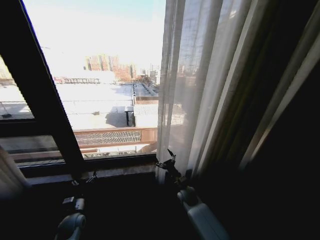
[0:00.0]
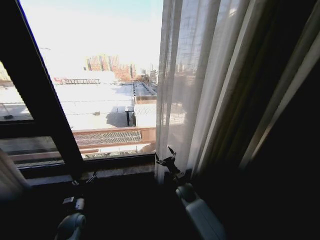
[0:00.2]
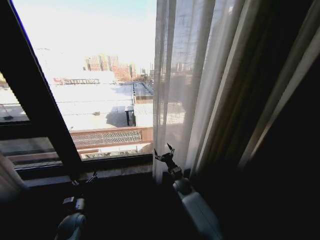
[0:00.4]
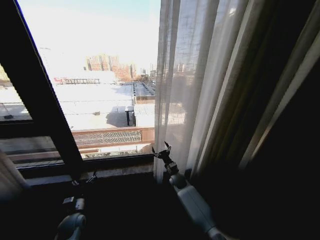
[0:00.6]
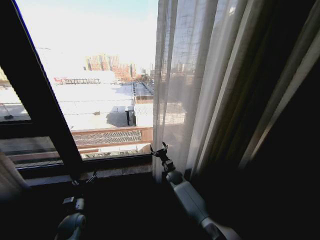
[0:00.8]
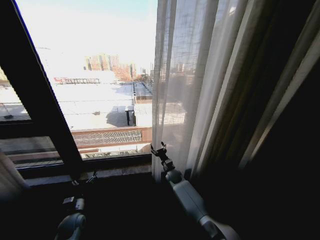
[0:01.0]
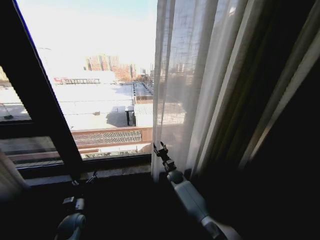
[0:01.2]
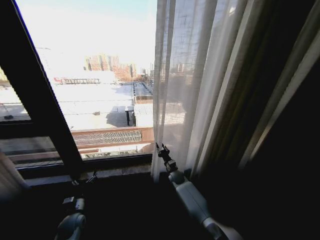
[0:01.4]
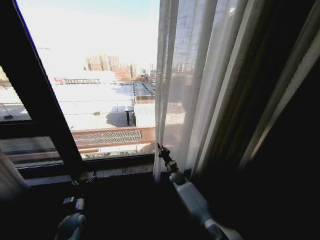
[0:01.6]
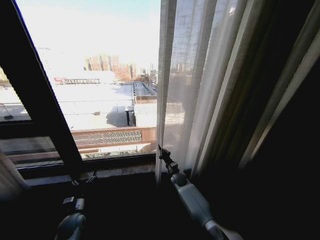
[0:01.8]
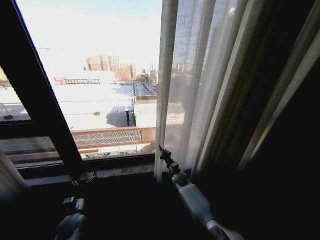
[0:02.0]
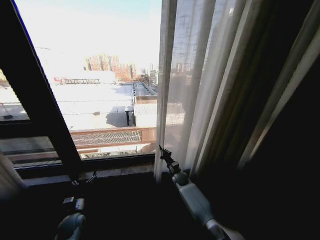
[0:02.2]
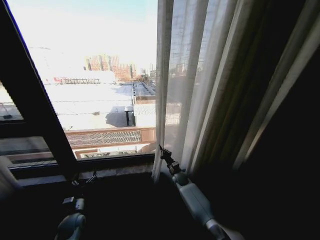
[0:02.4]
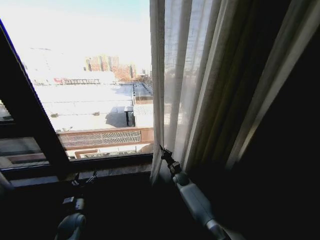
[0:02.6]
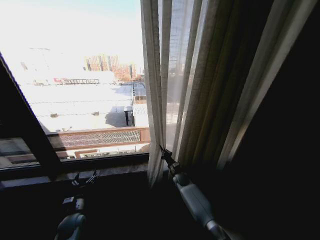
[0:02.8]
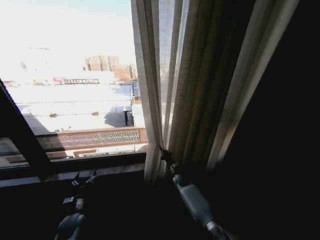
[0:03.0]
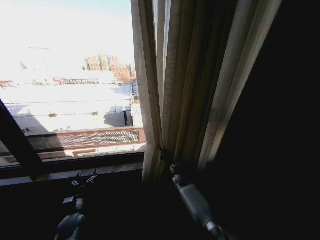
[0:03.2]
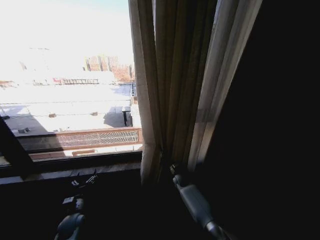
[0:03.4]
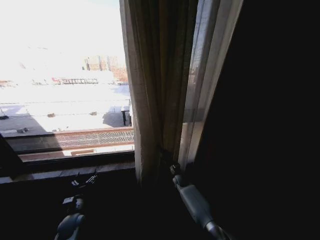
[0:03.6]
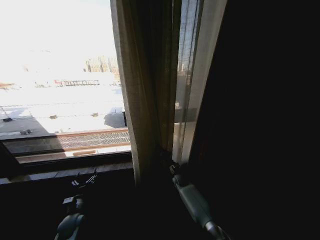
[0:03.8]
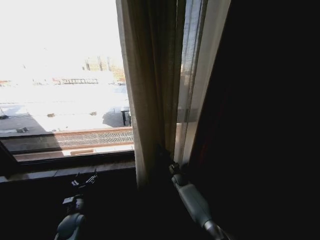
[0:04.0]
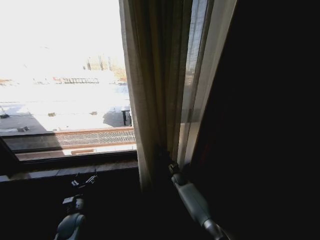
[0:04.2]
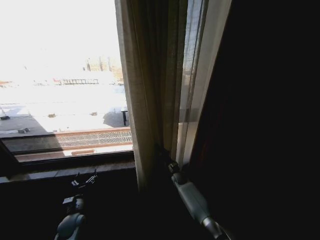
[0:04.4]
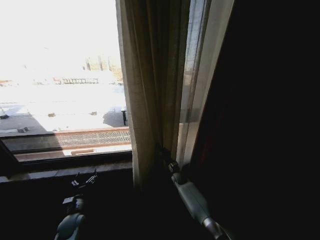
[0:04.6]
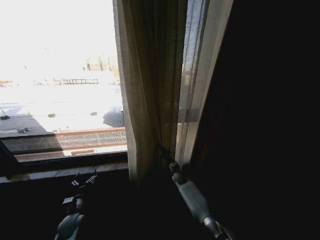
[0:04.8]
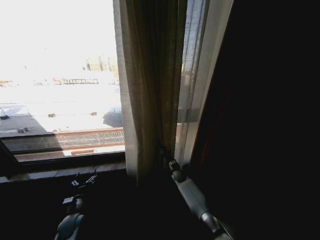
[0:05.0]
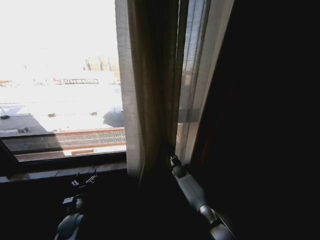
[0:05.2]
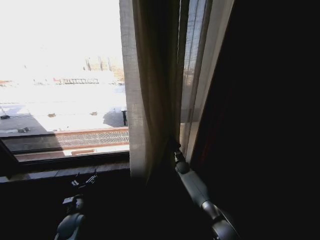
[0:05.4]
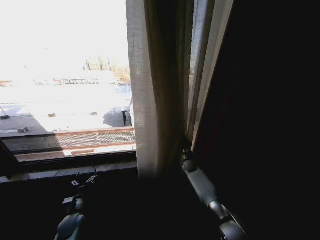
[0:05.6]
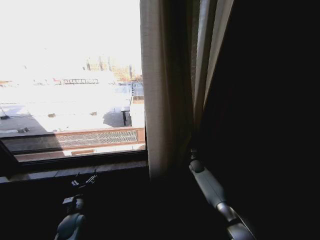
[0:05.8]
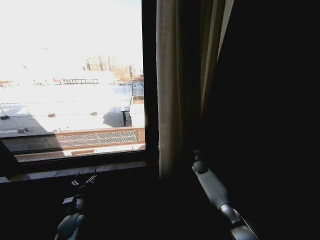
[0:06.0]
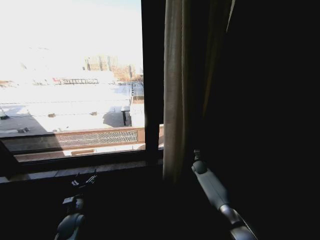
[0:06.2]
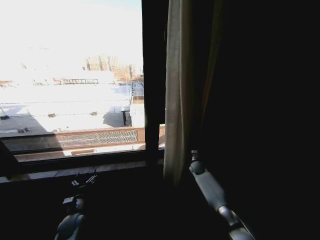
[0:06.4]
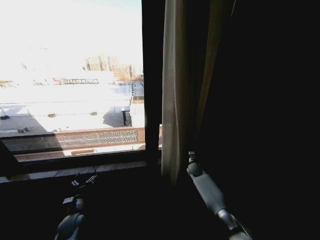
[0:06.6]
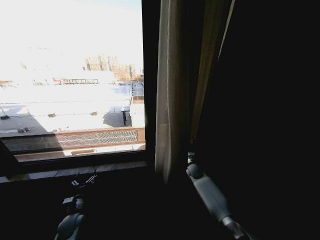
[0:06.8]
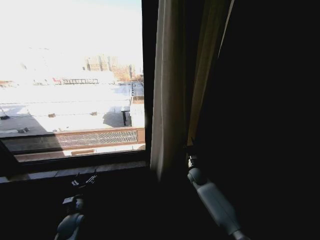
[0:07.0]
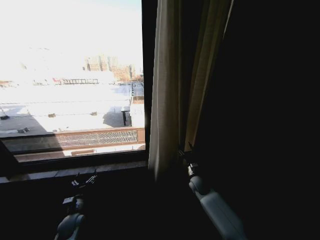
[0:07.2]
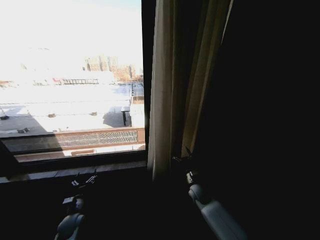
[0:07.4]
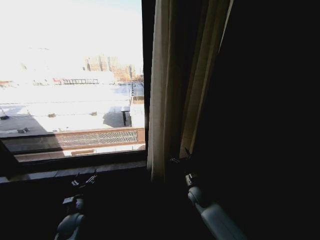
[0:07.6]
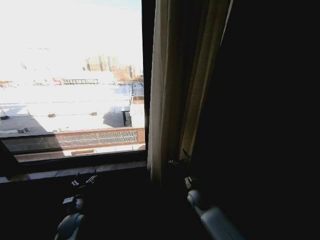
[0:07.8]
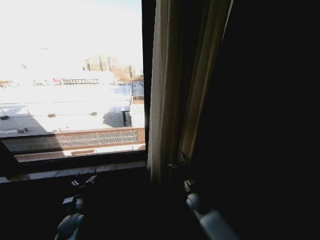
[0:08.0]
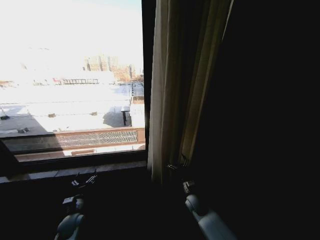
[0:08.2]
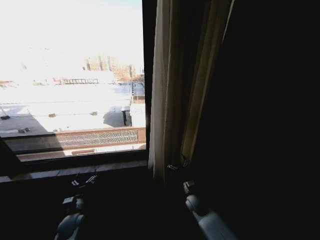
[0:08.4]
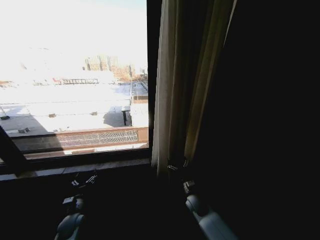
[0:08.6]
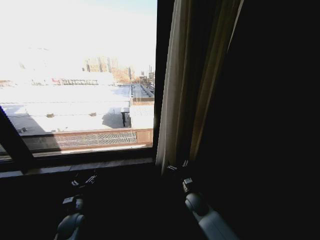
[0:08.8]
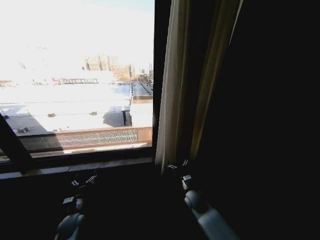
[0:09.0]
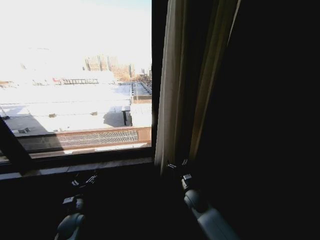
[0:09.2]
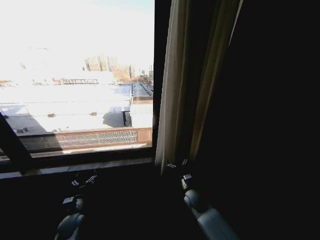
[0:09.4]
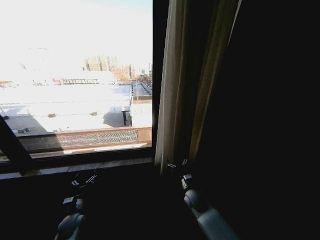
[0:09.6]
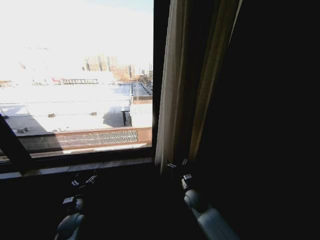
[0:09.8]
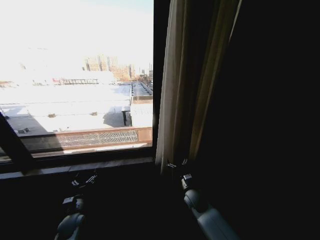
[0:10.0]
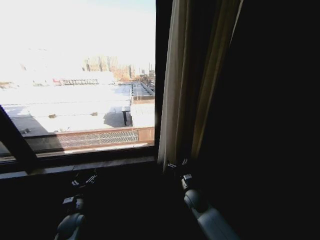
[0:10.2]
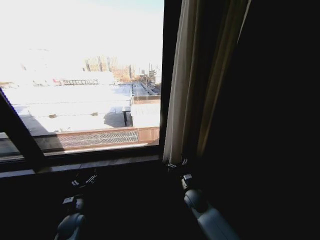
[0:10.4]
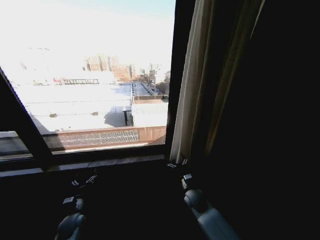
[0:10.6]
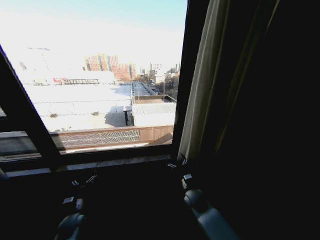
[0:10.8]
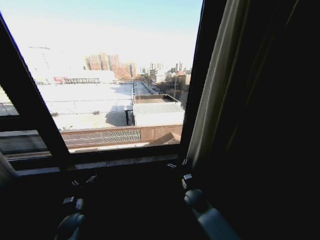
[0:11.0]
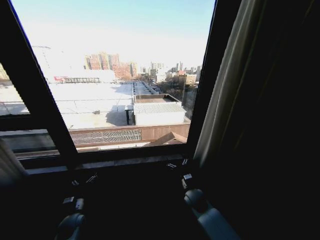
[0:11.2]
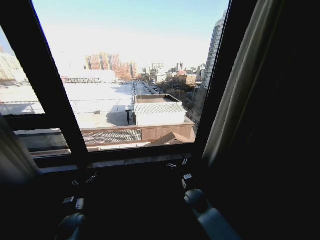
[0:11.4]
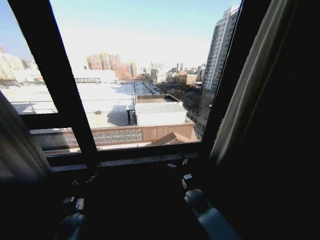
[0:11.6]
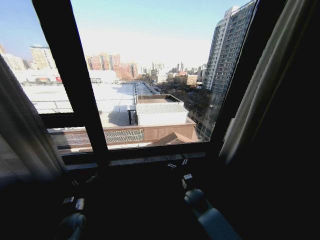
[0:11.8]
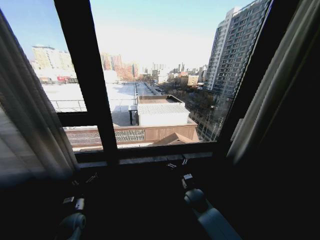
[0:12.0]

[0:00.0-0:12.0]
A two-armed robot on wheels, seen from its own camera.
Task of the whole recording: Open the curtains by pulling them apart, changing their state from closed to fully open.
0:00.0 to 0:01.6: The right gripper goes about 10 cm forward, and closes up.
0:04.4 to 0:06.0: The right gripper heads to the right, covering some 15 cm.
0:06.0 to 0:07.6: The right gripper travels backward and to the left by approximately 20 cm, and opens its fingers.
0:07.6 to 0:09.0: The grippers stay close to where they were, moving slightly.
0:09.0 to 0:10.4: Both grippers stay about where they are.

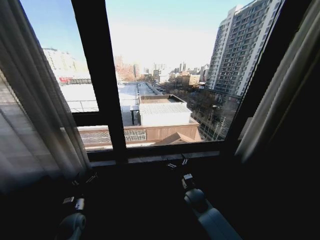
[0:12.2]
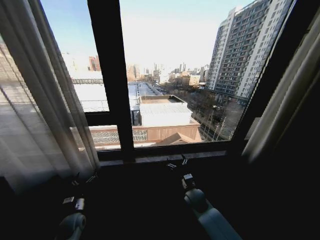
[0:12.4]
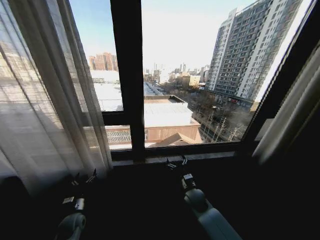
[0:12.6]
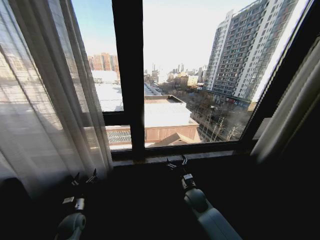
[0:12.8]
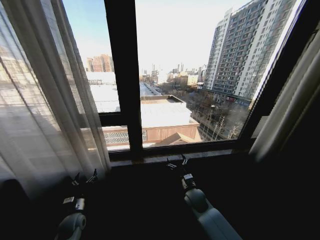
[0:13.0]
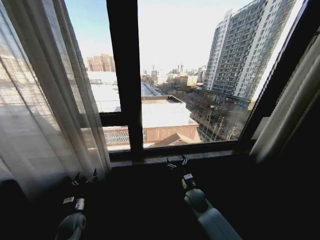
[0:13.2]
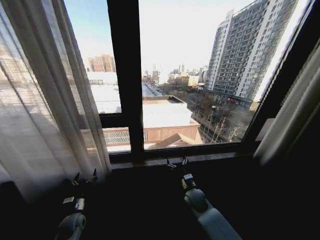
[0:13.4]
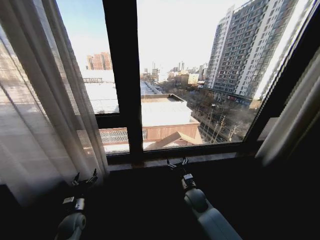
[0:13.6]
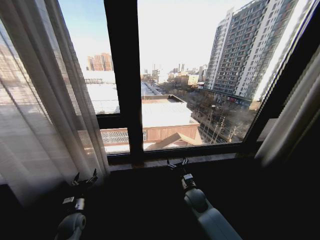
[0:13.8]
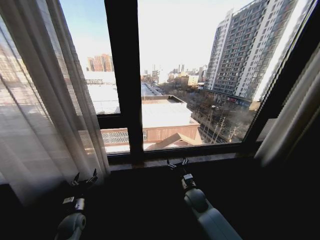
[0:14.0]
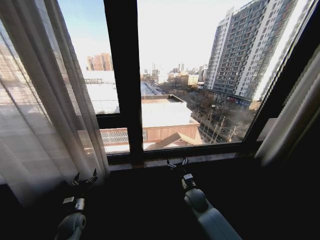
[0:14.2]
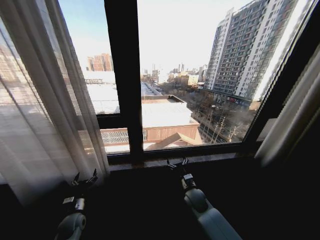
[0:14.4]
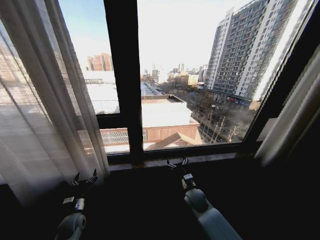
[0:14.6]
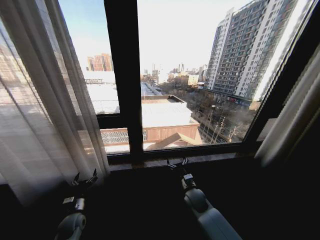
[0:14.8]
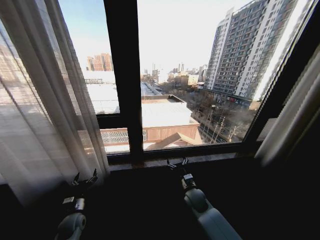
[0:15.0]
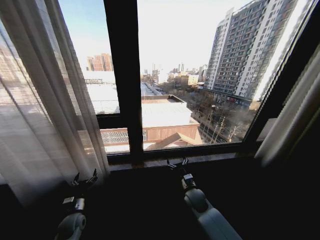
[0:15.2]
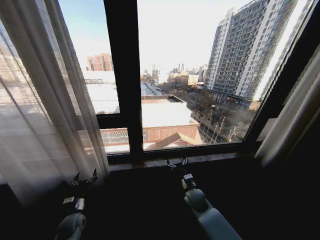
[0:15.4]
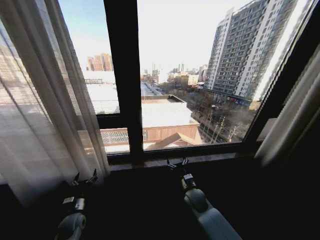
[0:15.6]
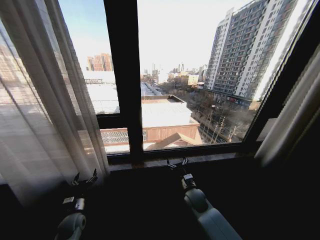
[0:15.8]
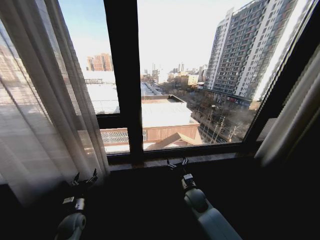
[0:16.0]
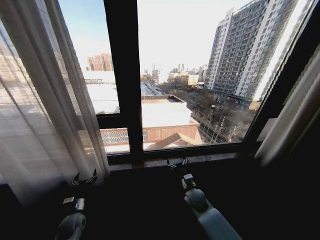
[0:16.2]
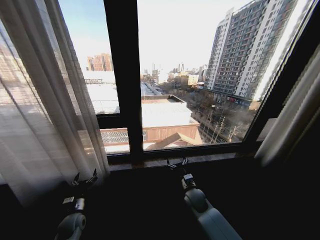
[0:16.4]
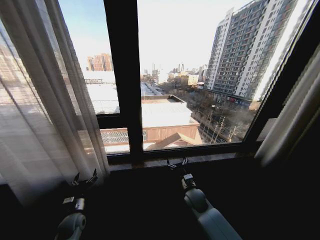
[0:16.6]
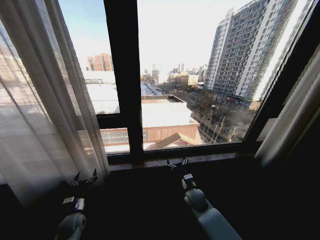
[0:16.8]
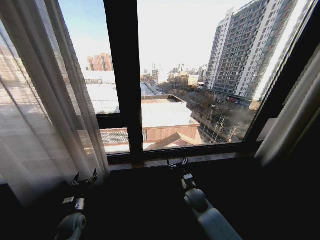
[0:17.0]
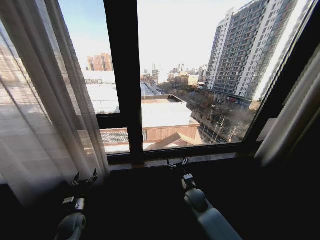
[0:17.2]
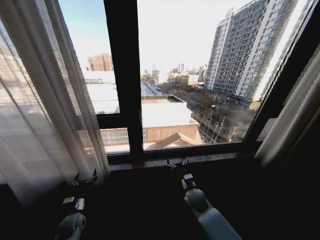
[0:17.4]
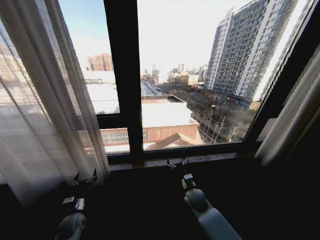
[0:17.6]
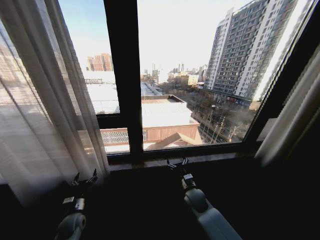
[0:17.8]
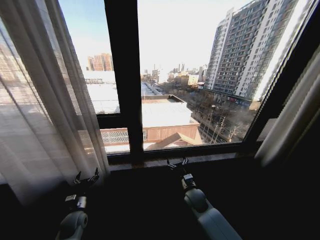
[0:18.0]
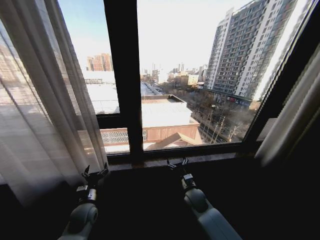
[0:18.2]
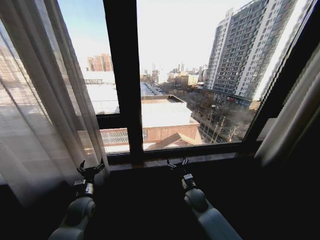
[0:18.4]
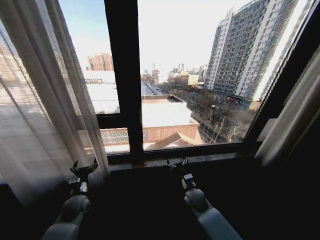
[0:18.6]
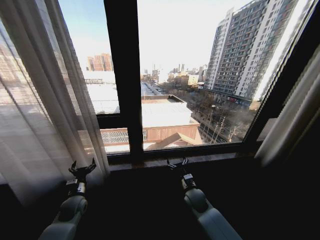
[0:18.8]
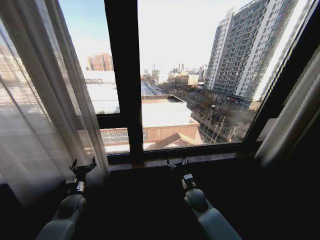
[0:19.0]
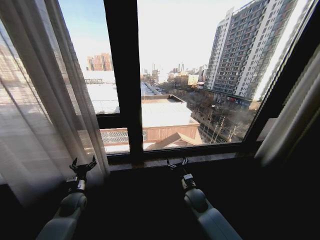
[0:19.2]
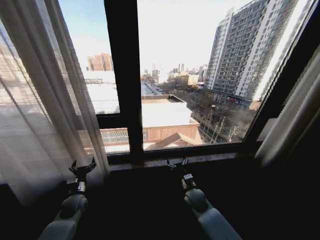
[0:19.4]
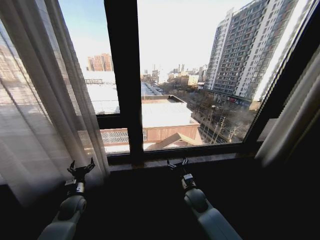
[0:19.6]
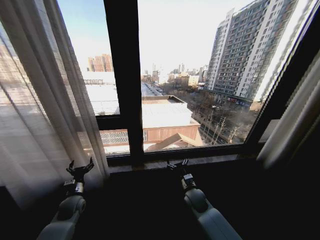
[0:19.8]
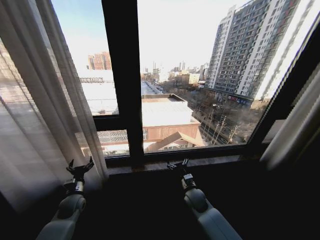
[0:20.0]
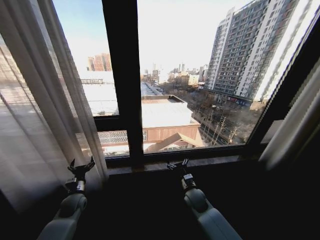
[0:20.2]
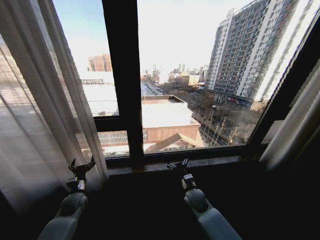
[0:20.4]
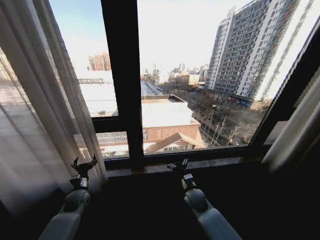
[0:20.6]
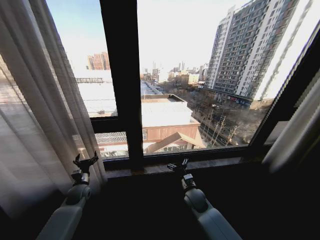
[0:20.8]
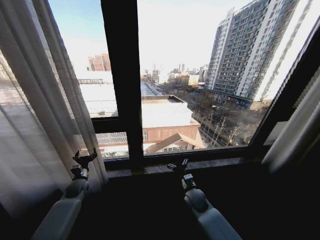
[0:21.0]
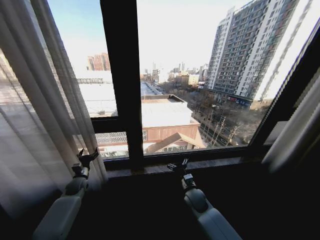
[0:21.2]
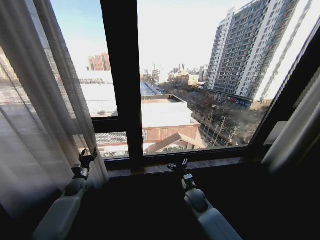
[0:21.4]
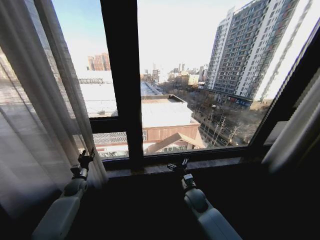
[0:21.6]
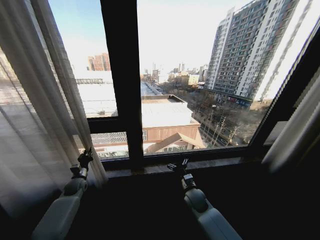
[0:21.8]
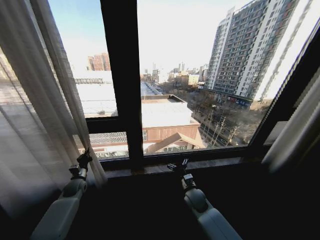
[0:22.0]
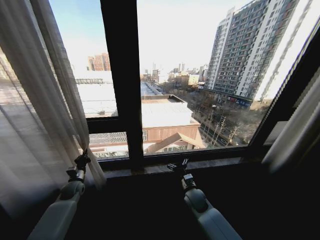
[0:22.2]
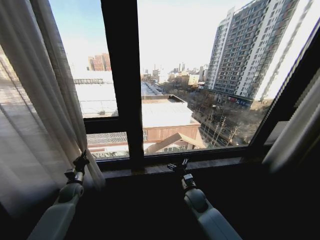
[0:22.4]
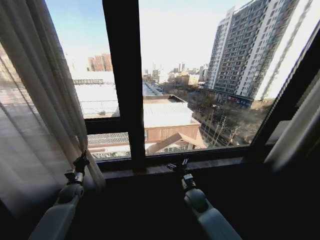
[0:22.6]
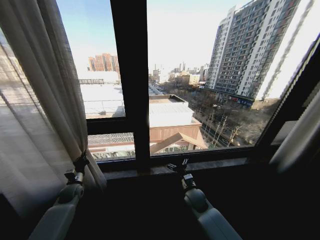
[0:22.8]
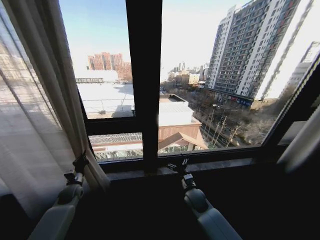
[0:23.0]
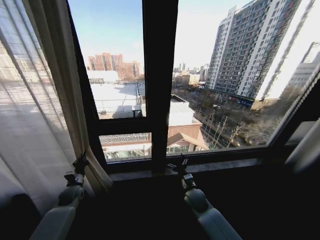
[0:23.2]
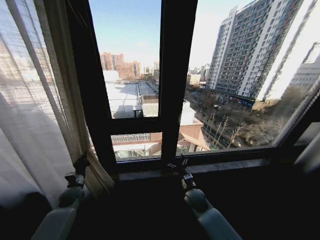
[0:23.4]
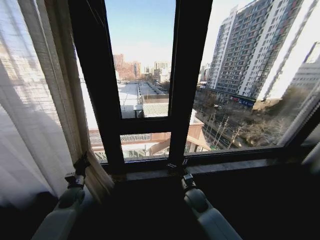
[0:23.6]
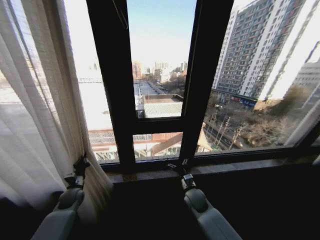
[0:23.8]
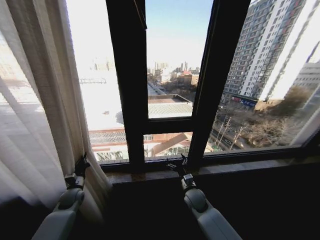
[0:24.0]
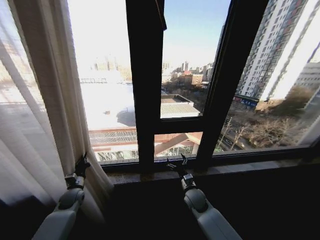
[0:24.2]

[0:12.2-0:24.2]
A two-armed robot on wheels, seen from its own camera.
Task of the whole recording: Open the curtains by pulling them apart, changing their state from closed to fully open.
0:13.8 to 0:16.6: The two grippers keep their place.
0:16.6 to 0:18.2: The left gripper is displaced to the right and upward by about 10 cm.
0:18.2 to 0:19.8: The left gripper heads to the left, covering about 10 cm.
0:19.8 to 0:21.2: The left gripper goes approximately 10 cm forward.
0:21.2 to 0:22.6: The left gripper closes.
